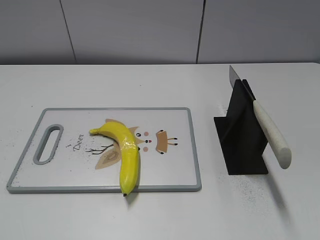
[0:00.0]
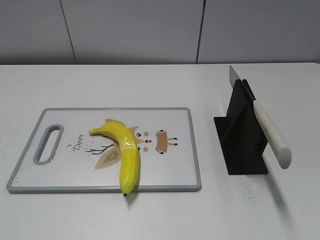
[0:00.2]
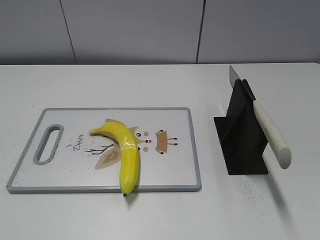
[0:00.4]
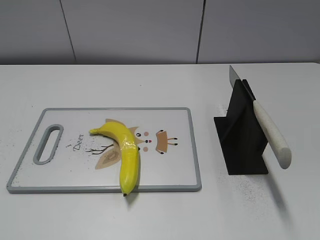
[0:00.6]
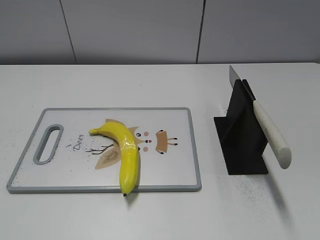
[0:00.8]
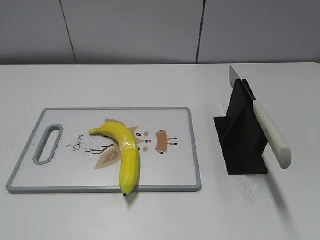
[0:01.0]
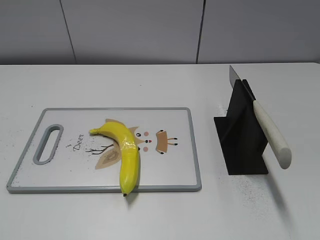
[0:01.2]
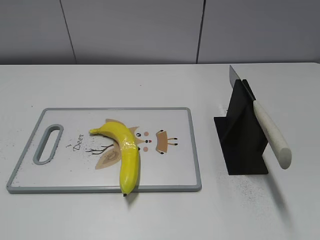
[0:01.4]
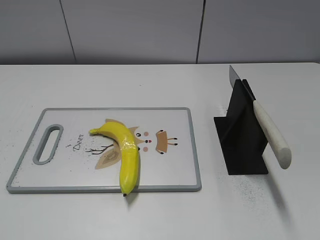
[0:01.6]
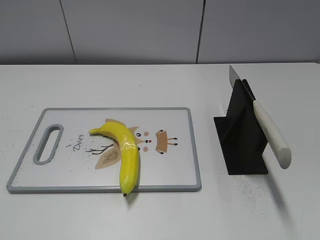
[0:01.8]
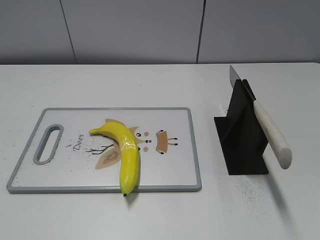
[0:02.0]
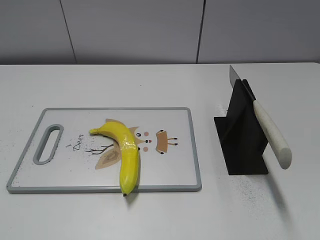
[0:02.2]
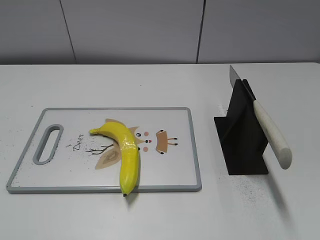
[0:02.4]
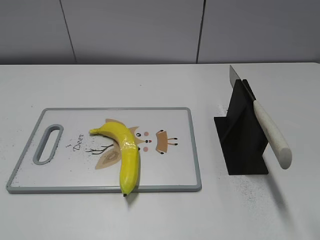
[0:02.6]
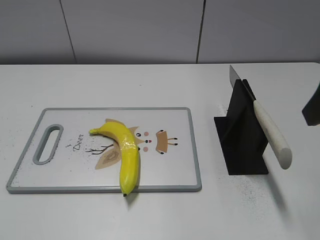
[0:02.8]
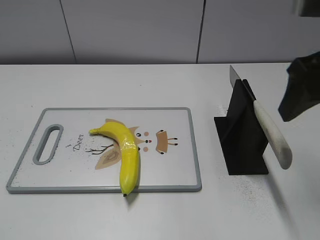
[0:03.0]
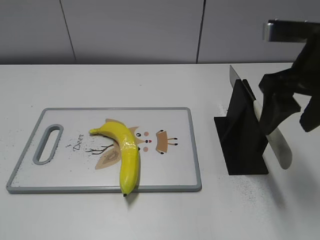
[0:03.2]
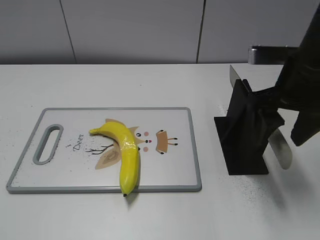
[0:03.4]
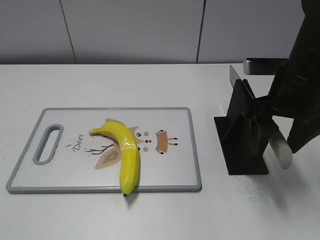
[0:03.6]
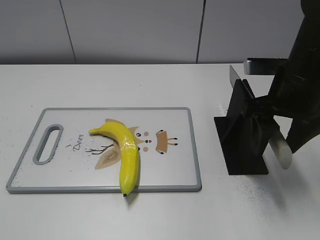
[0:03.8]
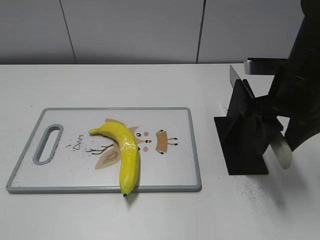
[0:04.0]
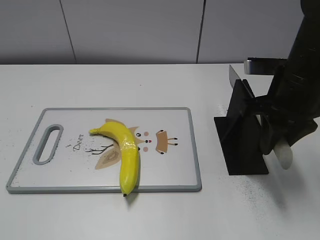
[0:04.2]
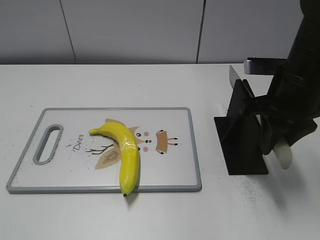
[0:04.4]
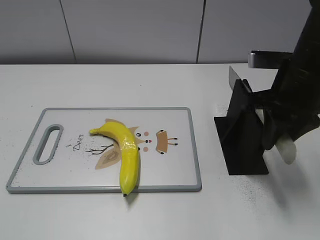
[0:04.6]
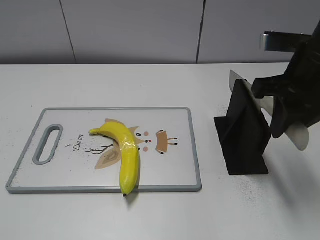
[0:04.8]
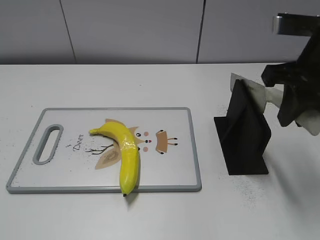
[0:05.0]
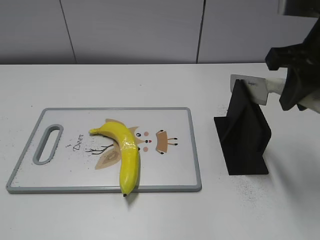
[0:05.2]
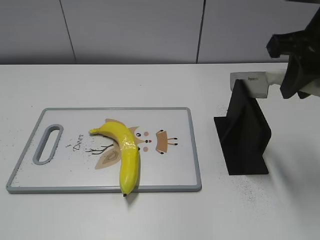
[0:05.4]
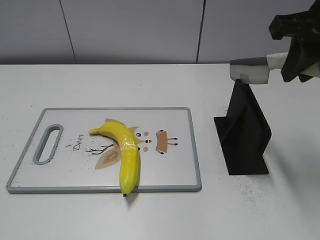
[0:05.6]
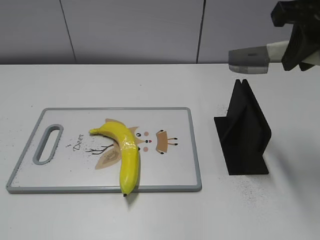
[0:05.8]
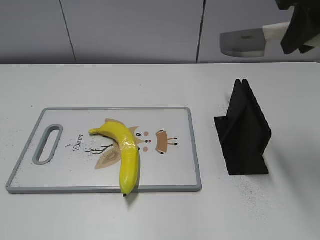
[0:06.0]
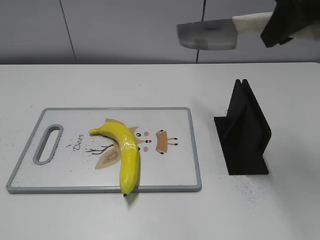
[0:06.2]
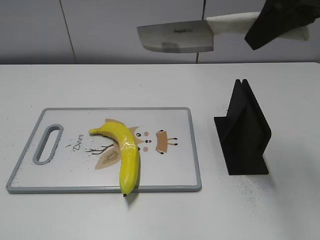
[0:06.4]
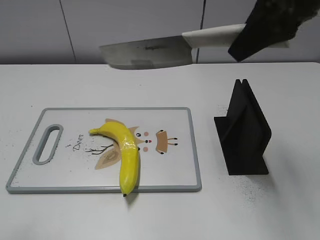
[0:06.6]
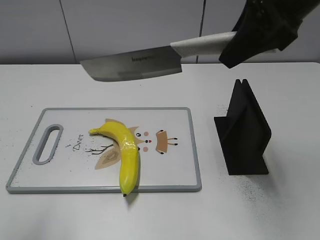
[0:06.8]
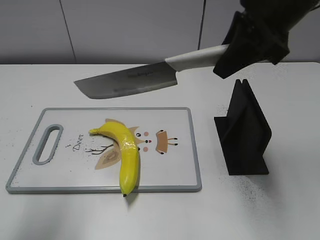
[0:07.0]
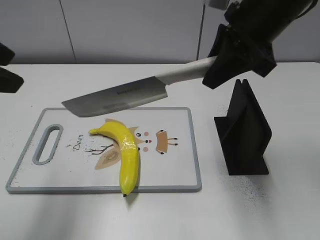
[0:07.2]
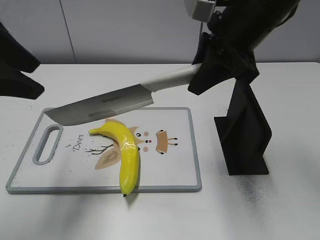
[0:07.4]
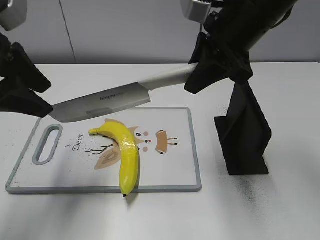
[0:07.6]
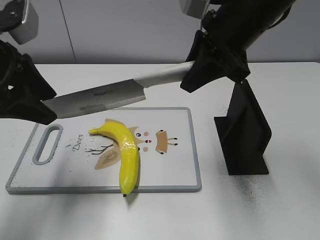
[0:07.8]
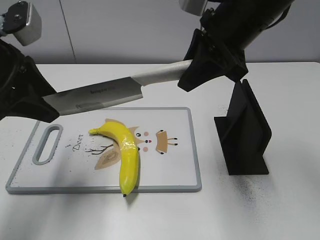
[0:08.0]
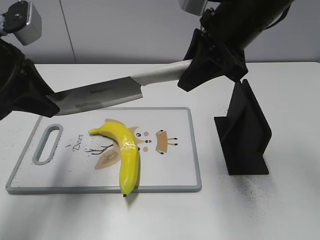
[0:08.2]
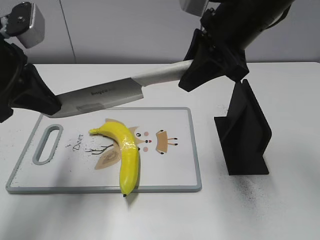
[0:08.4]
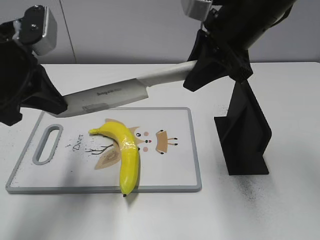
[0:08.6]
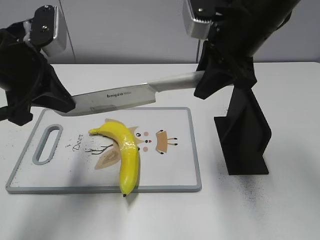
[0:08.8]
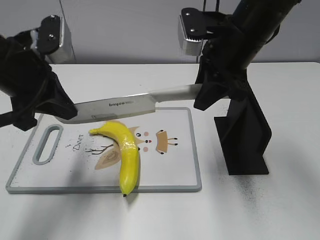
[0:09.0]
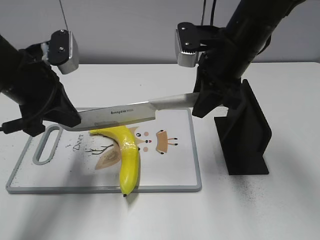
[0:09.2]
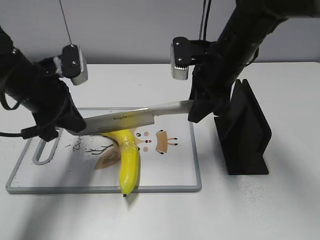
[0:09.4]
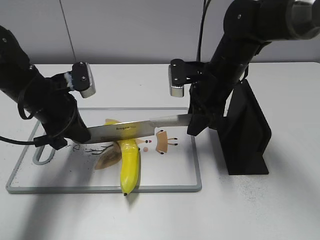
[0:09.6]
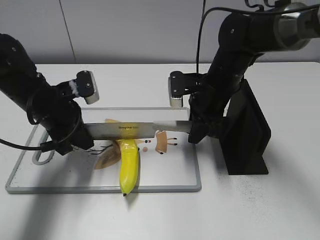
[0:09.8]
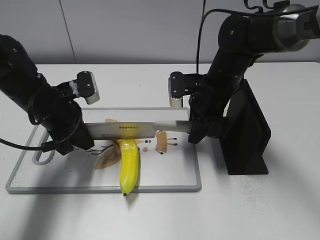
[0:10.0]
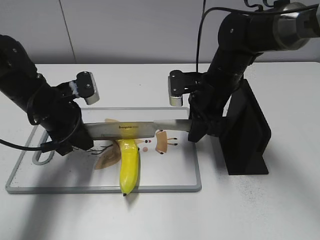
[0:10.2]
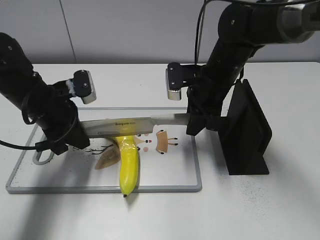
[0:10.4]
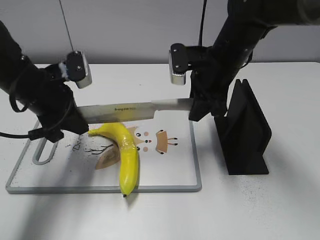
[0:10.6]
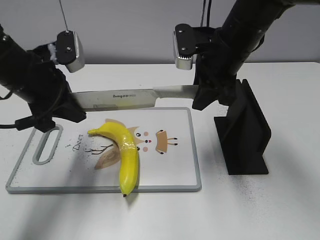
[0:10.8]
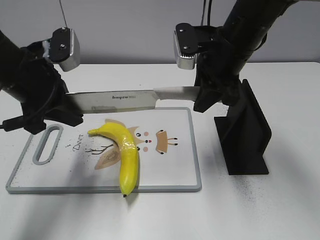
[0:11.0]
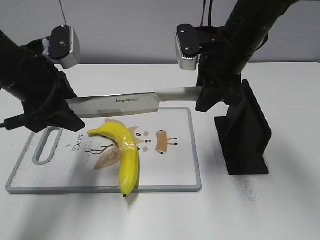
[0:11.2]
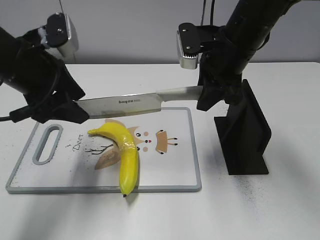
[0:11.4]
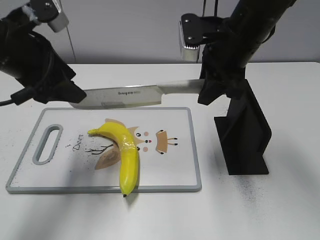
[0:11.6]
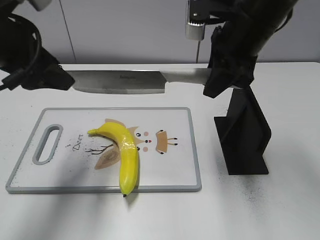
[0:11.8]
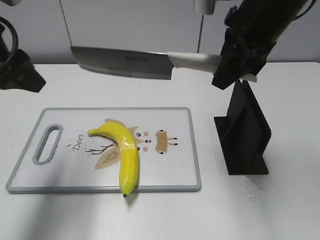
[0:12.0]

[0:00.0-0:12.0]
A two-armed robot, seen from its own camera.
Task of the whole recording: cut plastic banana.
Step, 0.0 to 5.2 s: Grab the knife handle with your right hand.
Step, 5.4 to 10.2 s: Lift the knife with your right hand.
1.6 to 3.0 s: The right gripper goes some 25 cm forward.
3.0 to 4.4 s: The right gripper goes approximately 10 cm downward, and closes up.
4.4 to 6.0 s: The right gripper moves upward, about 15 cm.
6.0 to 7.6 s: The left gripper shifts approximately 25 cm forward; the right gripper shifts about 10 cm to the left and downward.
7.6 to 9.0 s: The left gripper ends up approximately 5 cm from where it was, and closes.
9.0 to 10.4 s: Both grippers move downward, approximately 10 cm.
10.4 to 12.0 s: The right gripper moves upward, about 15 cm; the left gripper shifts roughly 15 cm upward and backward, and opens up.

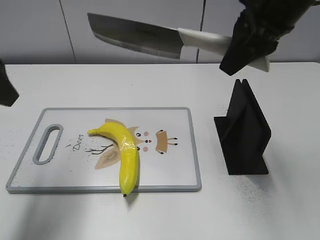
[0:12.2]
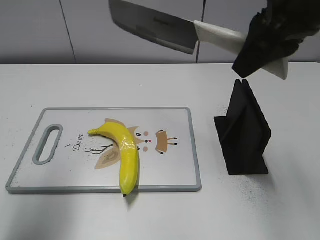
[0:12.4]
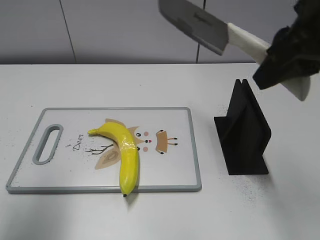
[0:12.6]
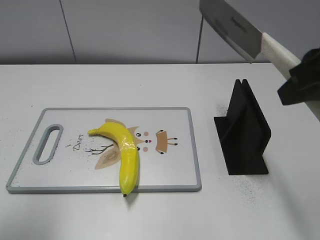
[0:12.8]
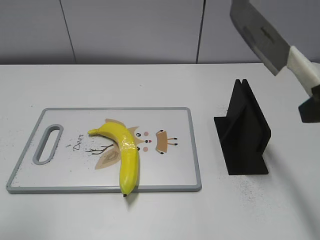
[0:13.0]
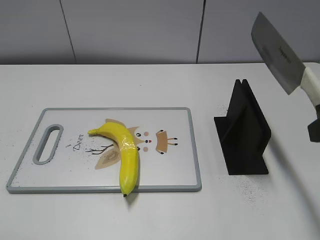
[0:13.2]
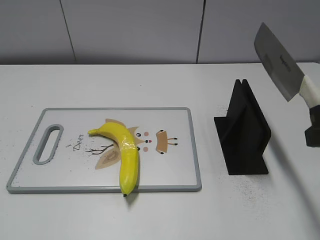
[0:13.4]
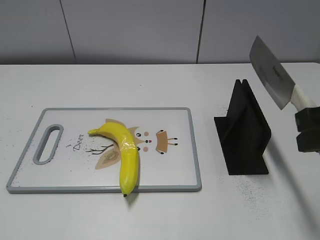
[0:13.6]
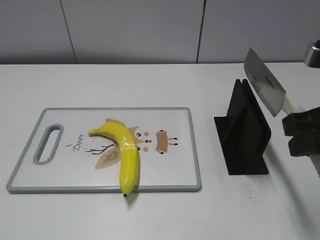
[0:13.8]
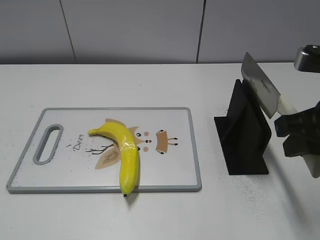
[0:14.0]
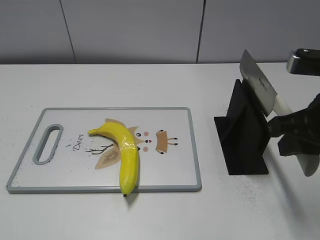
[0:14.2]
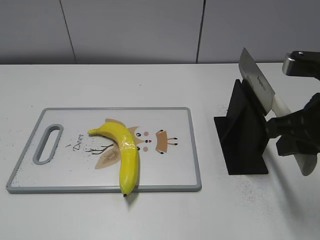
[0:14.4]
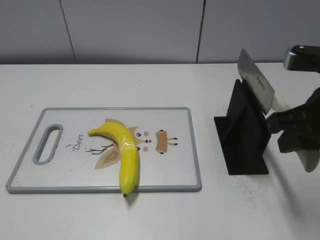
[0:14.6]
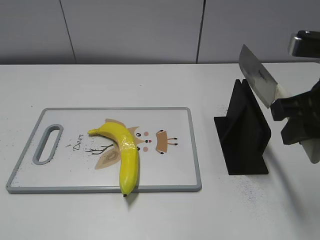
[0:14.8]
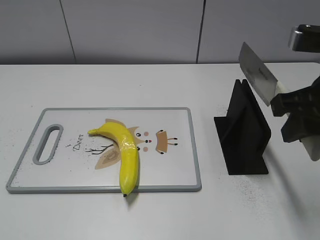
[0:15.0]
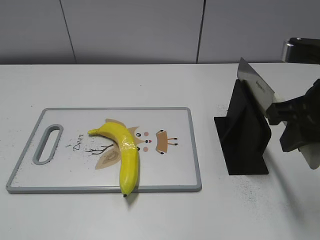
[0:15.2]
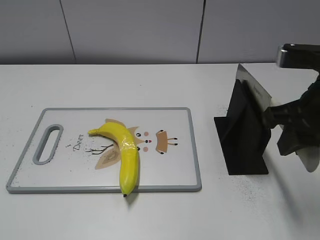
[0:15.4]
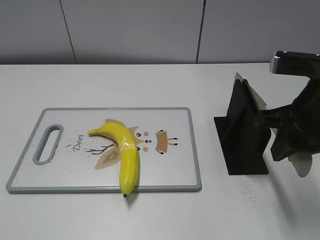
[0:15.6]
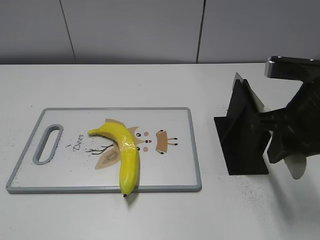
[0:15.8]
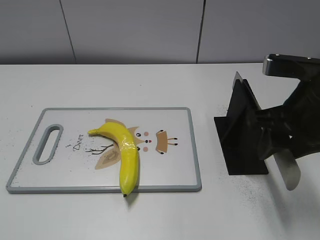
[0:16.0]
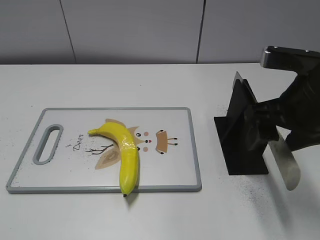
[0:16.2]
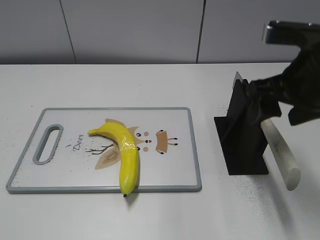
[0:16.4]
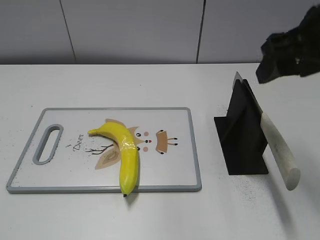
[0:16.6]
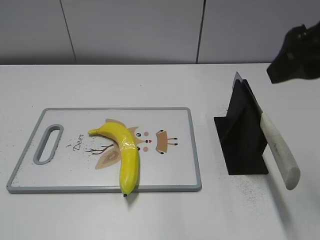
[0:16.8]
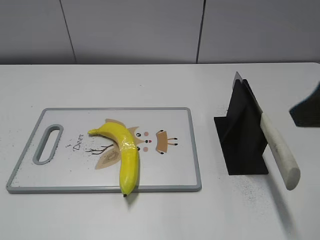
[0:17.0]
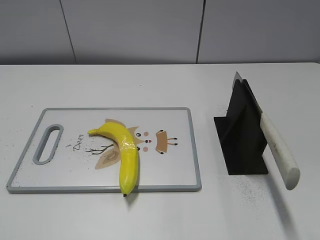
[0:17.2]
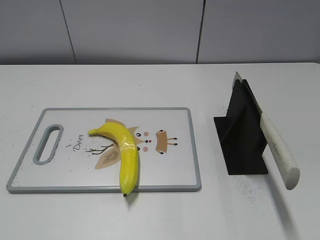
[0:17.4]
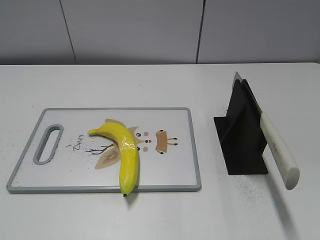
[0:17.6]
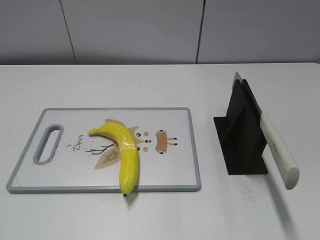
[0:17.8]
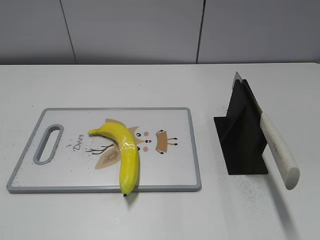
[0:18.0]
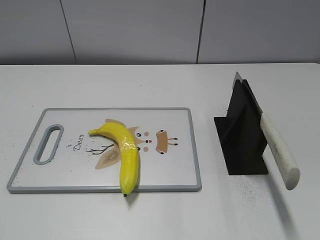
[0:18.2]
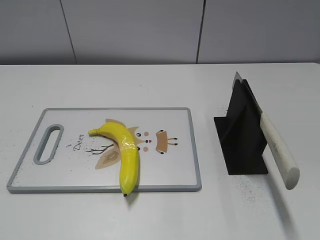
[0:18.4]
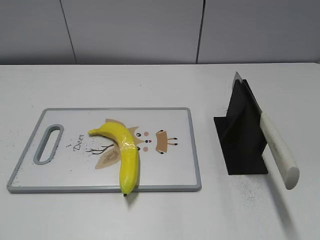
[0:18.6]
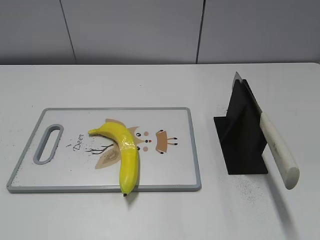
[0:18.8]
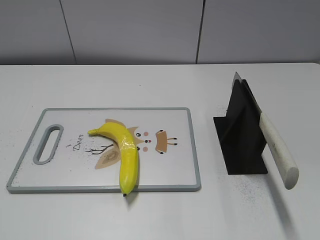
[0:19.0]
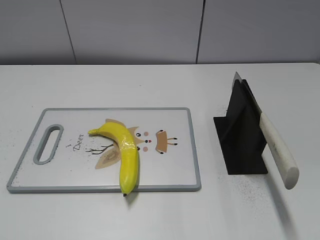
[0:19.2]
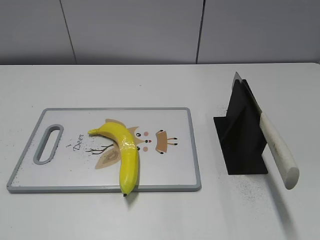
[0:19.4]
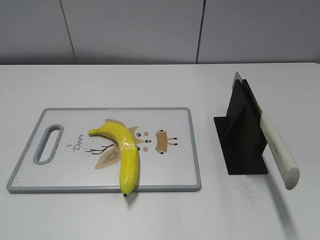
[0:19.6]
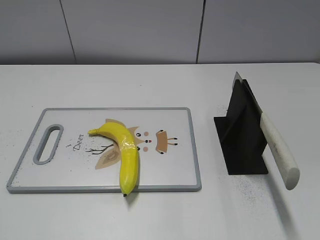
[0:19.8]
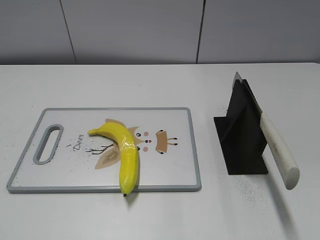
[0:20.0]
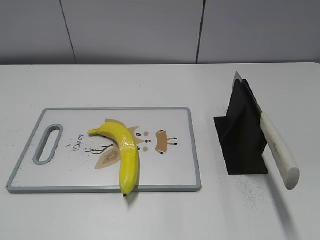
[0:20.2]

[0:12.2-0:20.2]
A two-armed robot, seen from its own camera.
Task of the whole recording: cut plastic banana.
Step, 12.4 to 13.4 s: Lift the knife with your right hand.
Step, 13.8 to 19.8 s: Place the knife on the storage rack with your right hand.
12.2 to 13.8 s: The right gripper is displaced backward, downward and to the right by about 15 cm, while the left gripper shifts about 25 cm backward.
13.8 to 15.4 s: The grippers make only small movements.
15.4 to 17.0 s: The right gripper travels upward by some 5 cm, and opens.
17.0 to 18.6 s: The right gripper travels backward and to the right by about 20 cm.

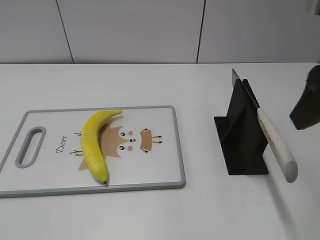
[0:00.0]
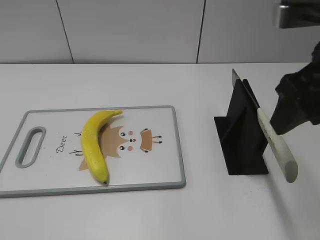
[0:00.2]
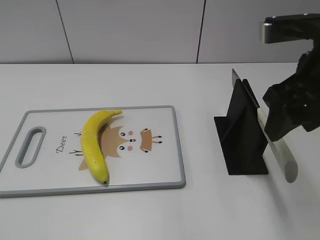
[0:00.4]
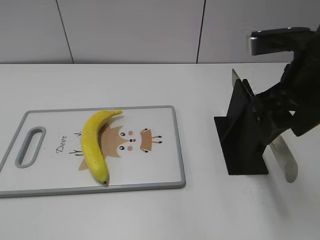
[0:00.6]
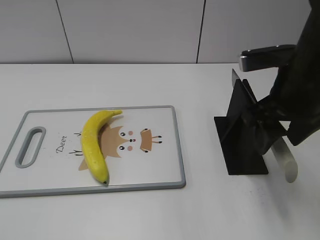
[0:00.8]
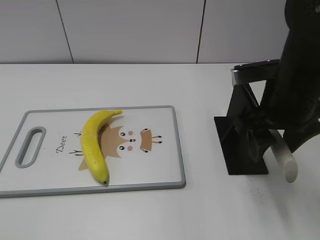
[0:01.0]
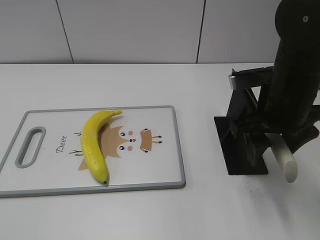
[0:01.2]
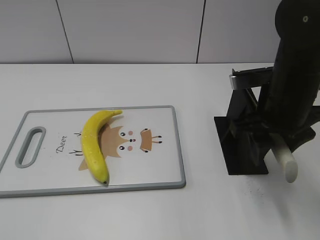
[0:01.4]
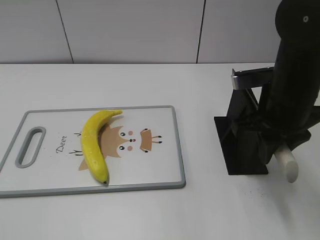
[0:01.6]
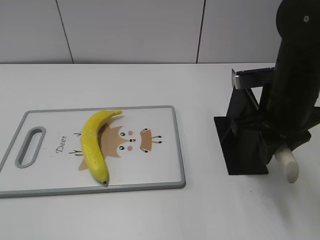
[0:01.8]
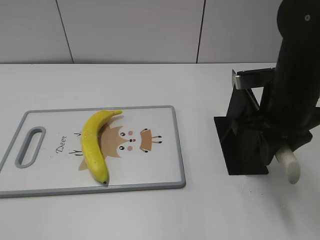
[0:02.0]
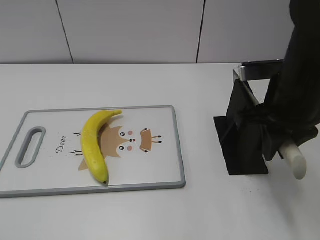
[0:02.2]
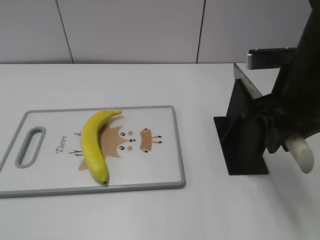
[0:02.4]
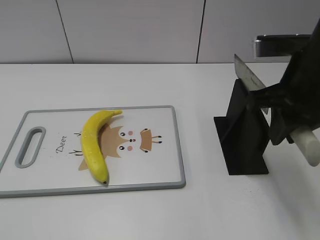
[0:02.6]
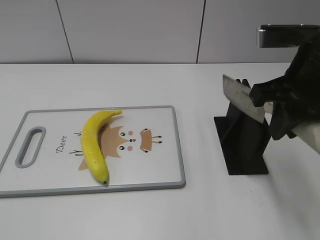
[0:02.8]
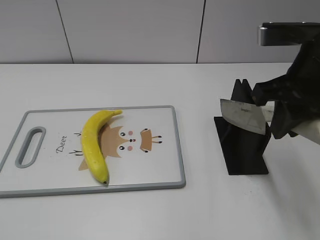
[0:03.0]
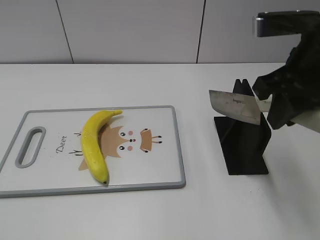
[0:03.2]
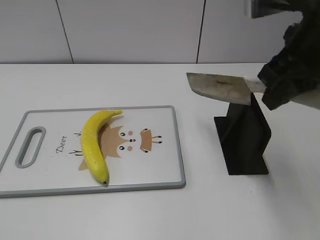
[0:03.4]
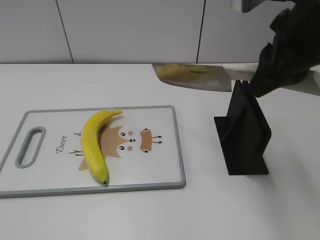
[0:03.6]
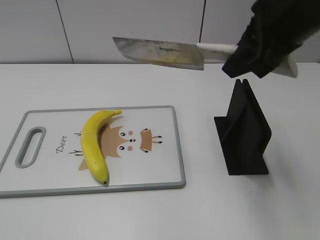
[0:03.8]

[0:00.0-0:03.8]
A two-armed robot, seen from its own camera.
Task of the whole recording: cut plastic banana.
Step, 0.0 to 3.2 s: Grab the knife handle with your right hand.
0.0 to 1.2 s: The right gripper moves downward and forward, about 15 cm.
1.2 to 2.6 s: The right gripper goes approximately 5 cm upward, and closes.
2.6 to 3.8 s: The right gripper travels upward by roughly 5 cm.
